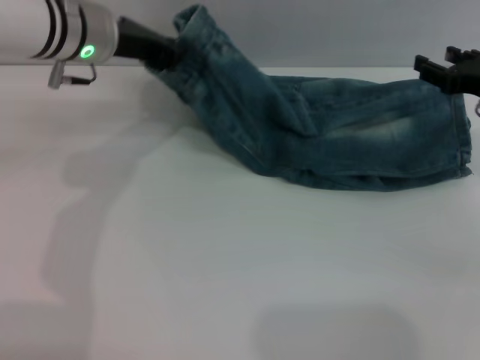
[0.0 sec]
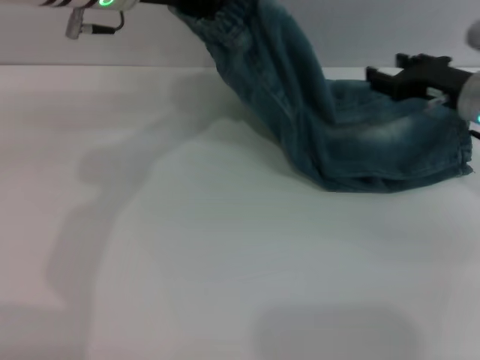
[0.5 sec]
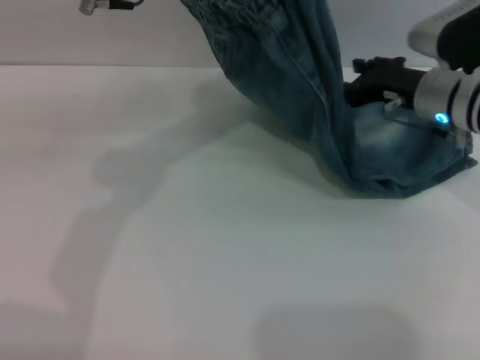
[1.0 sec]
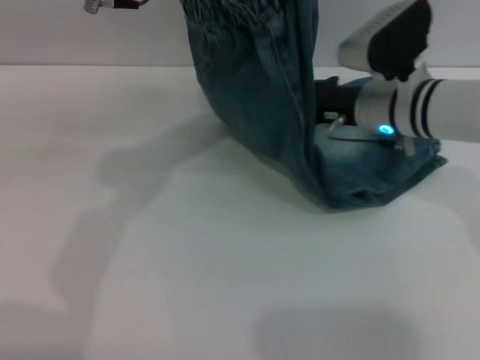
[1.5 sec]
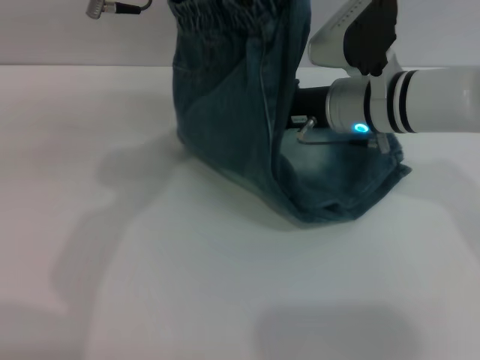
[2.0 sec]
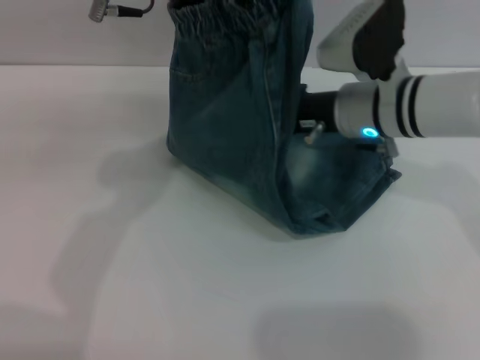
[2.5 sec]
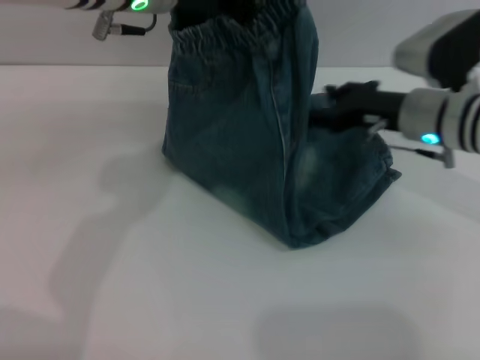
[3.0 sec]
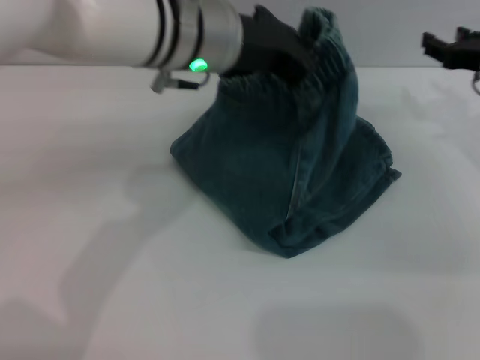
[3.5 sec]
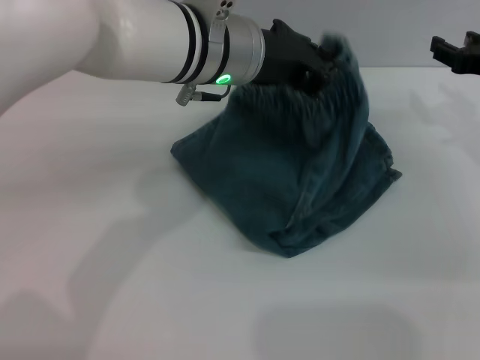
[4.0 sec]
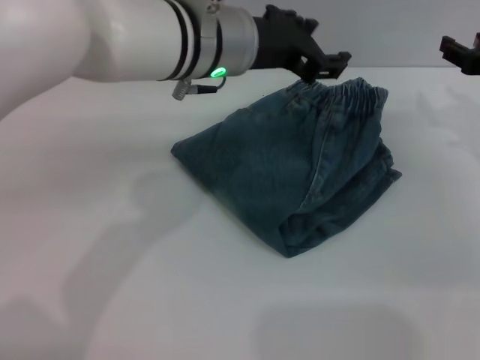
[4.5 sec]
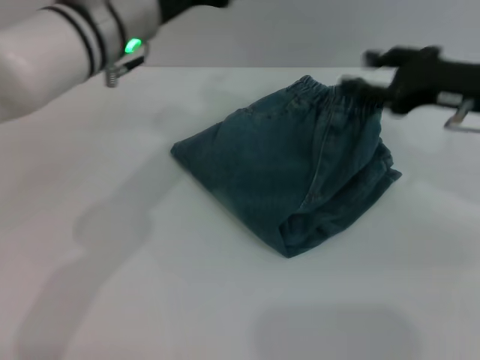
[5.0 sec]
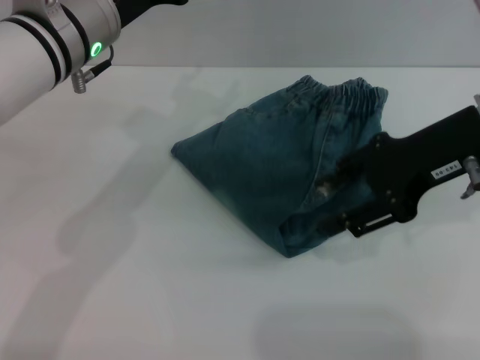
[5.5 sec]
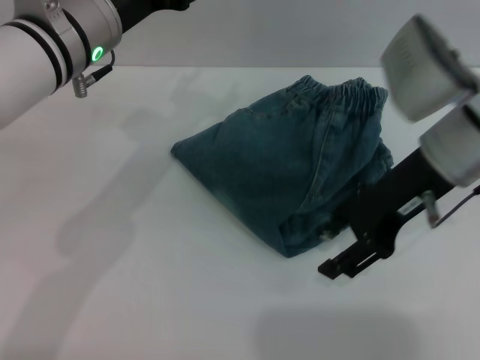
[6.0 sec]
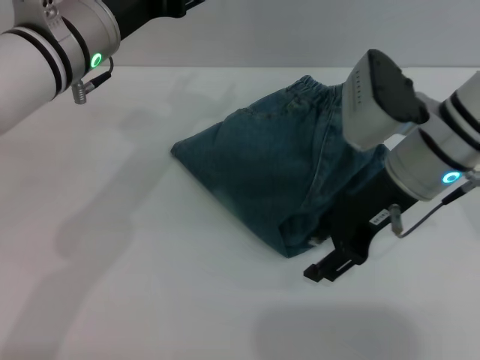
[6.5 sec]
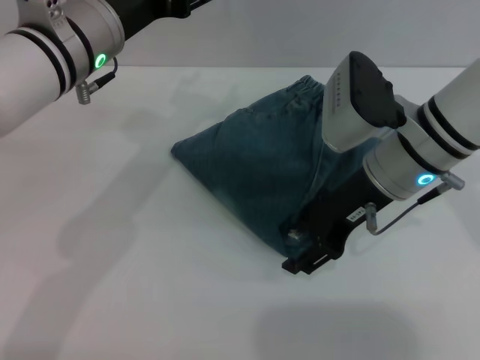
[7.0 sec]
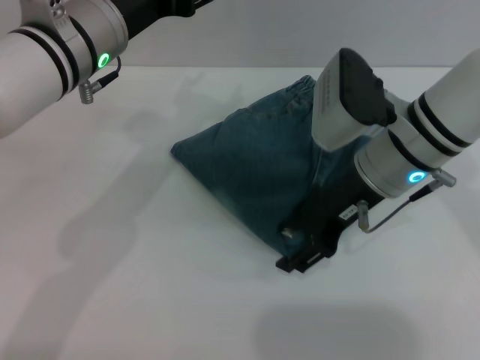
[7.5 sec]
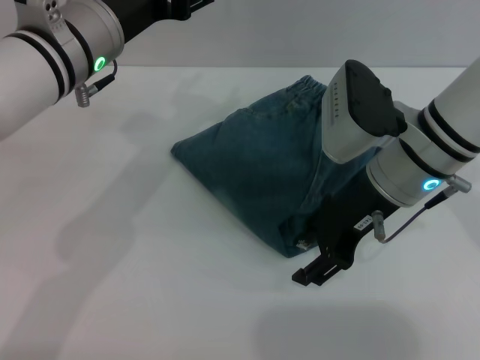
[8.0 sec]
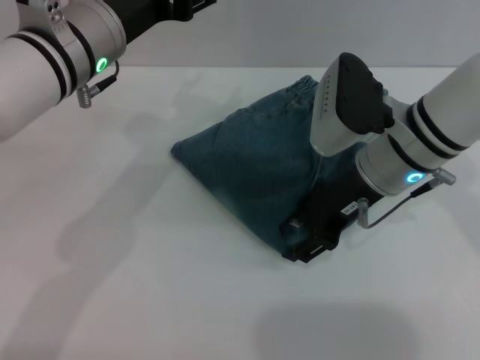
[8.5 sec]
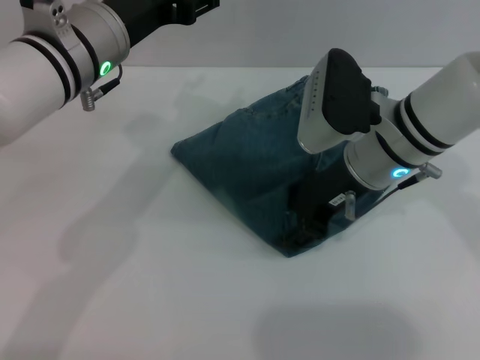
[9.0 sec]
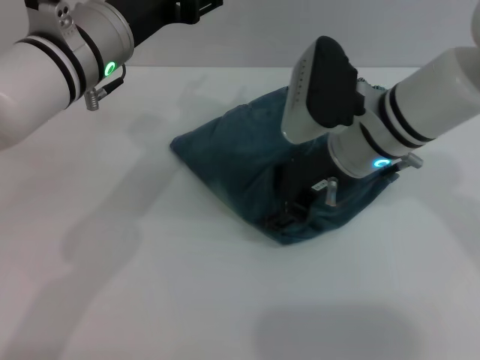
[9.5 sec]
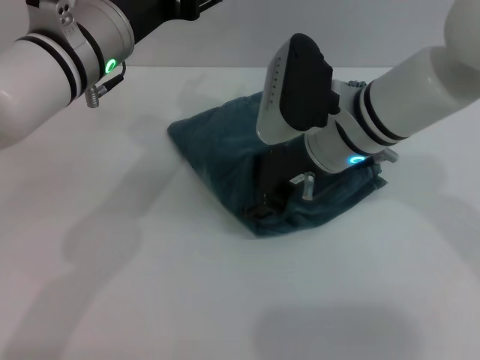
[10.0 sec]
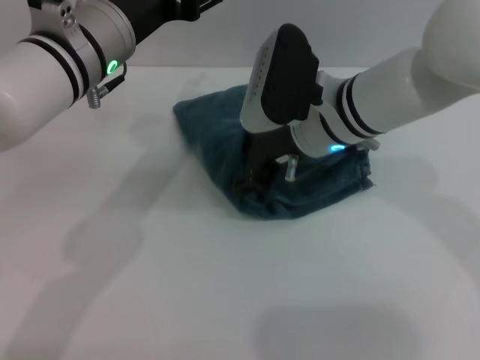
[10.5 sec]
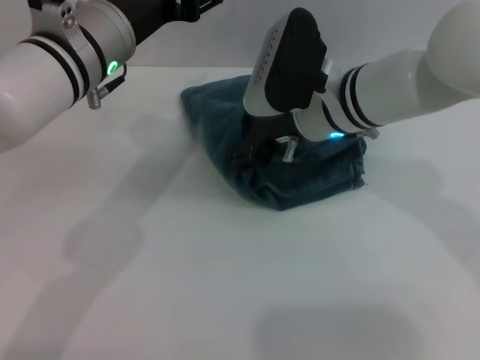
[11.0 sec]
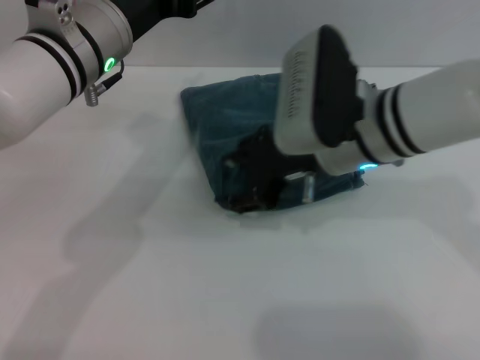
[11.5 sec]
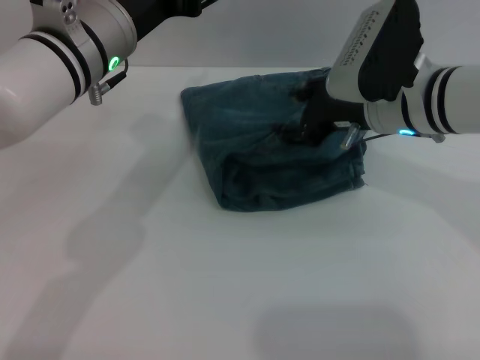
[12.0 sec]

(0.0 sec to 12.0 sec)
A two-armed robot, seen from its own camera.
Step, 0.0 sec - 4.5 sec: Fold the pants from left to right with the left gripper.
Step, 5.0 sec - 11.5 sec: Place the folded trousers onto the center area with the right grippers.
0.0 sec - 2.0 sec: The left gripper goes about 10 cm upward and to the right; the right gripper moves to the left, approximately 20 cm.
2.0 sec - 4.0 sec: The right gripper moves to the right, some 20 cm. The left gripper heads downward and to the right, covering about 10 cm.
4.0 sec - 6.0 sec: The left gripper heads to the left, covering some 10 cm, and opens up. The right gripper is displaced to the left and upward by about 15 cm.
6.0 sec - 8.0 sec: The grippers stay close to where they were, moving slightly.
8.0 sec - 10.0 sec: The right gripper shifts by roughly 5 cm.
10.0 sec - 12.0 sec: The right gripper is displaced to the right by roughly 5 cm.

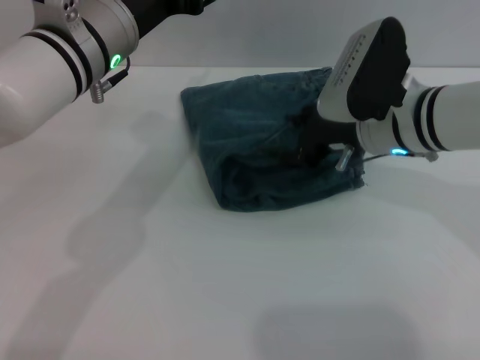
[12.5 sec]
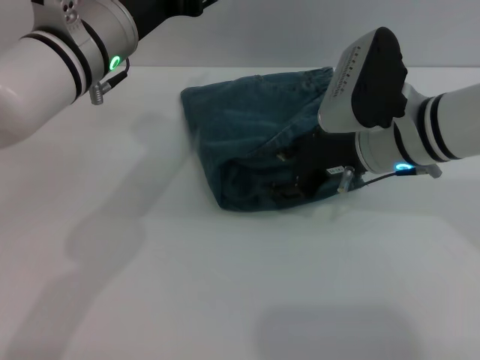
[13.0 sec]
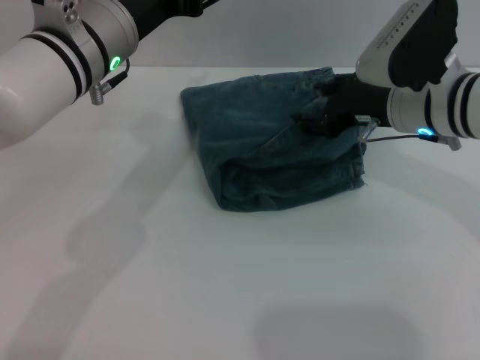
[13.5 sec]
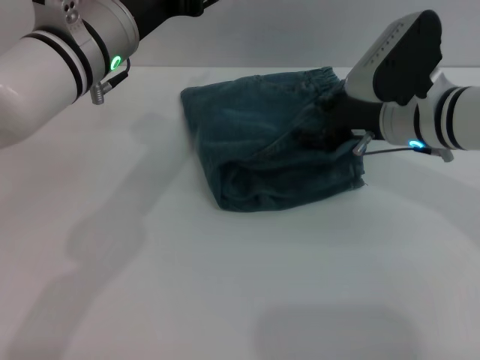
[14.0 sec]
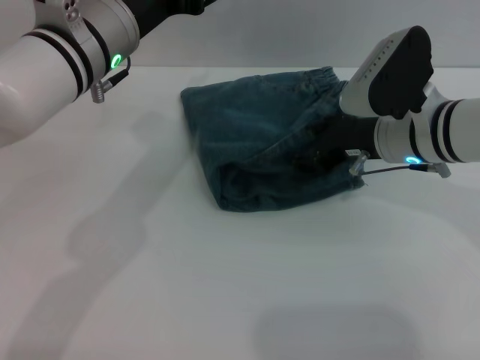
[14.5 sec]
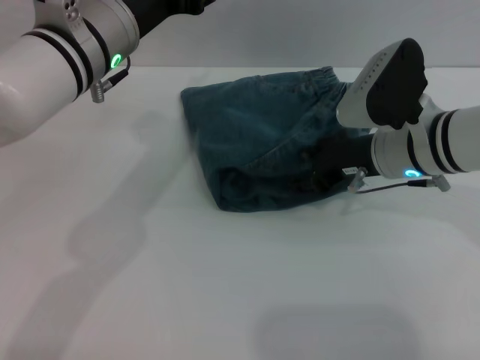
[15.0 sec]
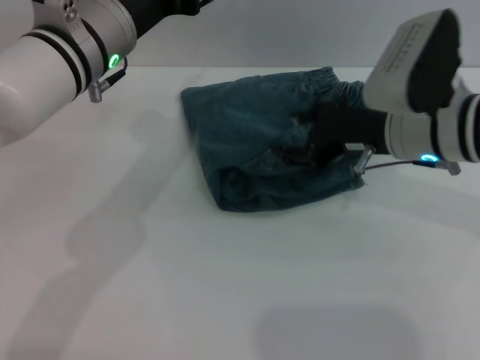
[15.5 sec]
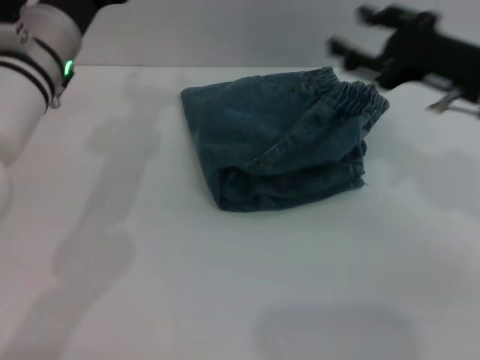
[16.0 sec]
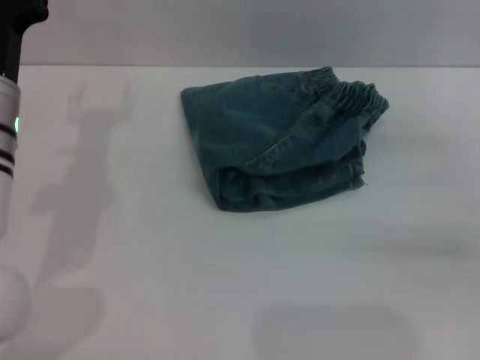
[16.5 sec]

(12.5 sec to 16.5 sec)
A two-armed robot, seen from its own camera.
12.5 sec - 14.5 sec: The grippers stay close to where they were, moving slightly.
14.5 sec - 16.5 sec: The right gripper shifts roughly 20 cm to the right, while the left gripper goes about 10 cm to the left and downward.

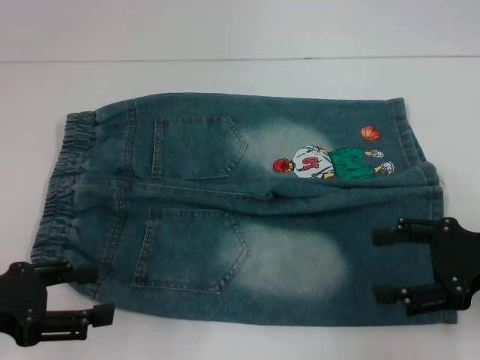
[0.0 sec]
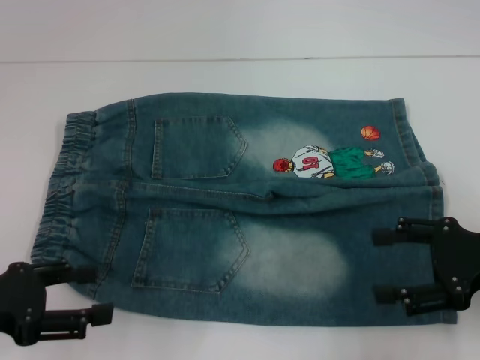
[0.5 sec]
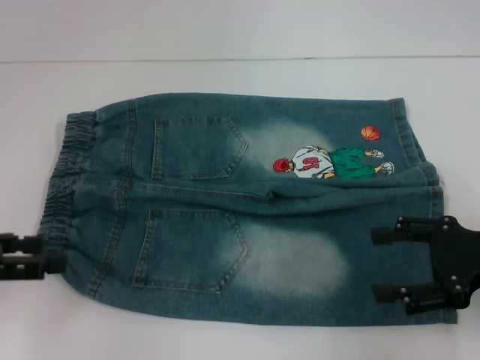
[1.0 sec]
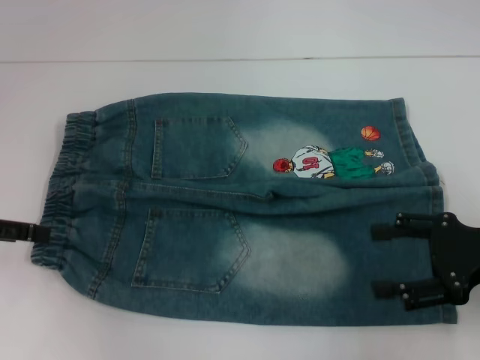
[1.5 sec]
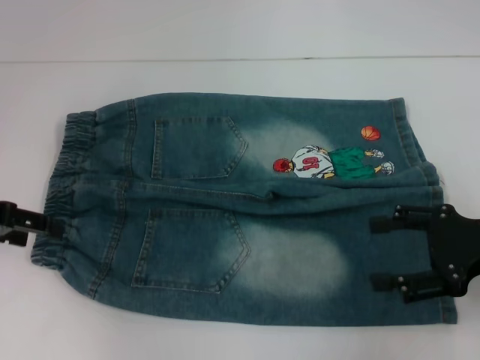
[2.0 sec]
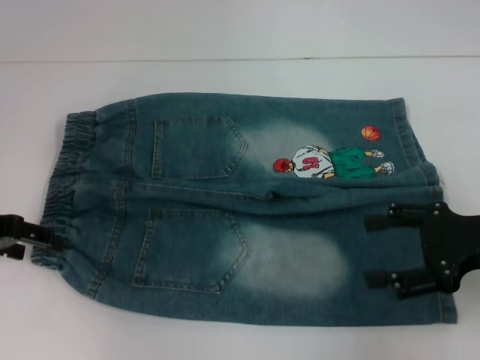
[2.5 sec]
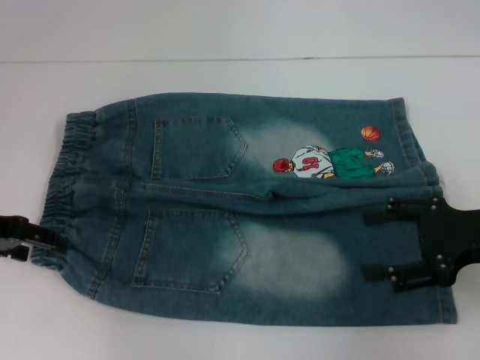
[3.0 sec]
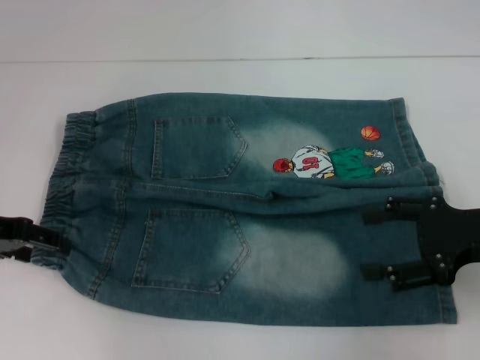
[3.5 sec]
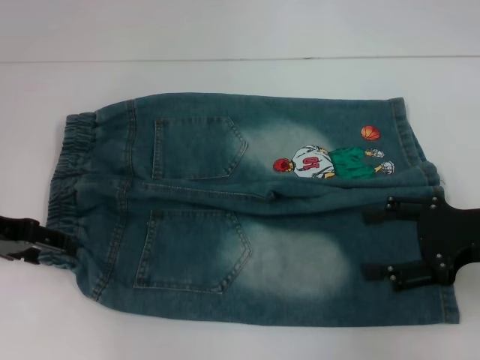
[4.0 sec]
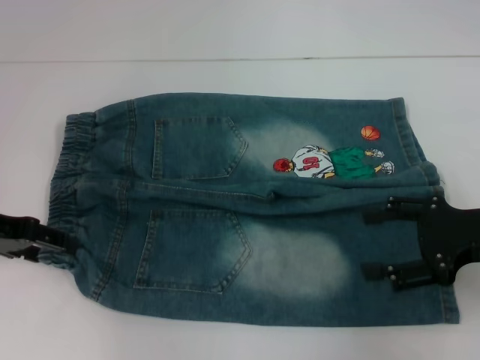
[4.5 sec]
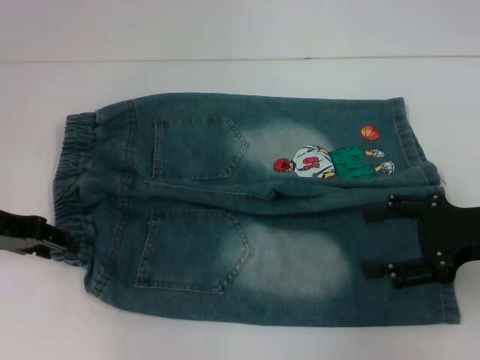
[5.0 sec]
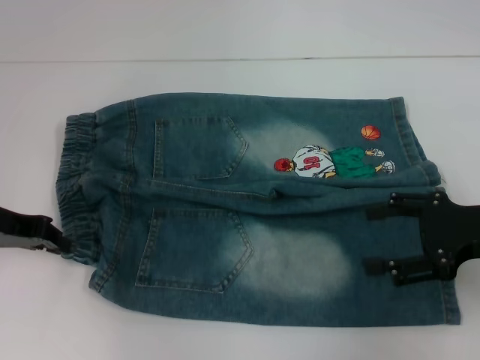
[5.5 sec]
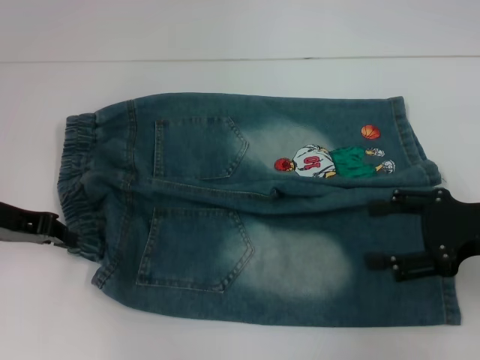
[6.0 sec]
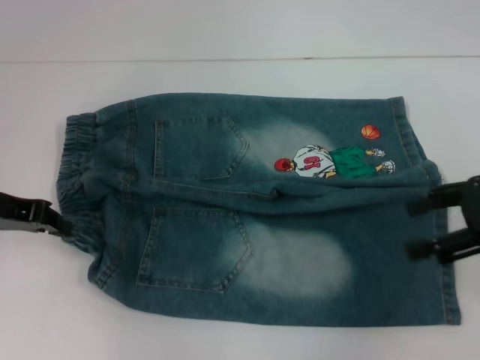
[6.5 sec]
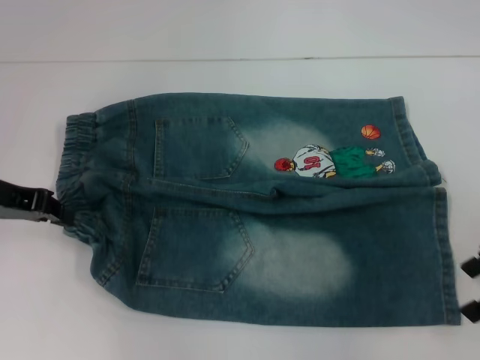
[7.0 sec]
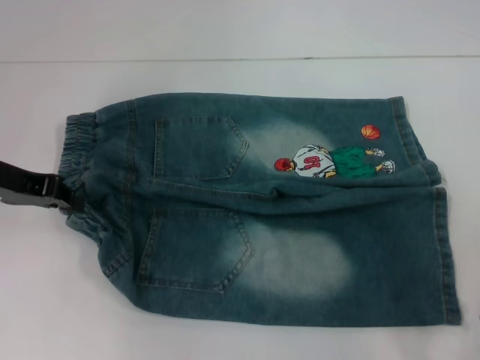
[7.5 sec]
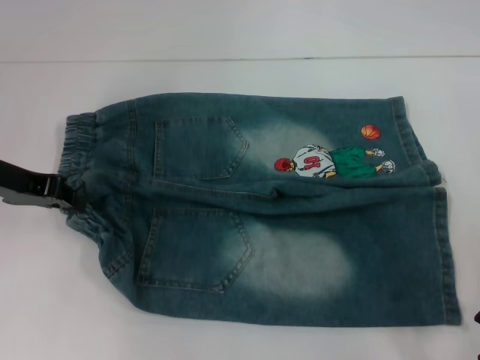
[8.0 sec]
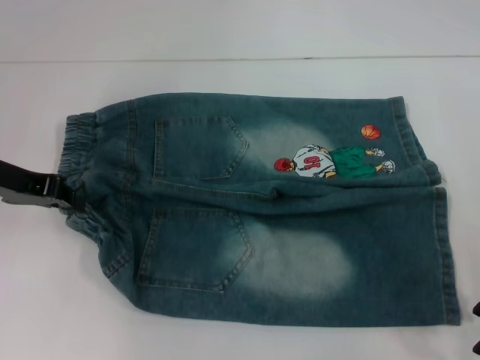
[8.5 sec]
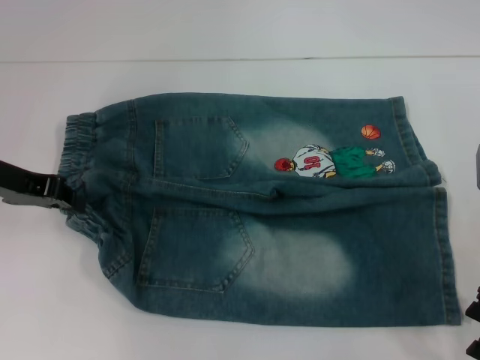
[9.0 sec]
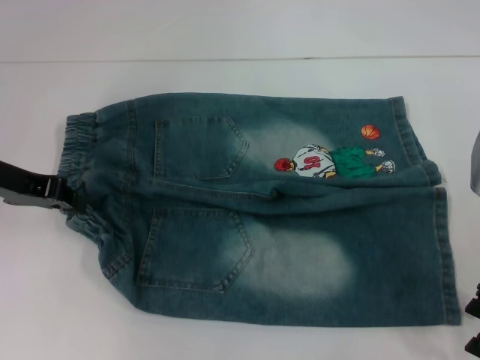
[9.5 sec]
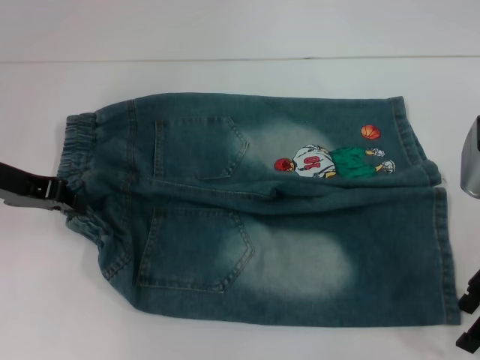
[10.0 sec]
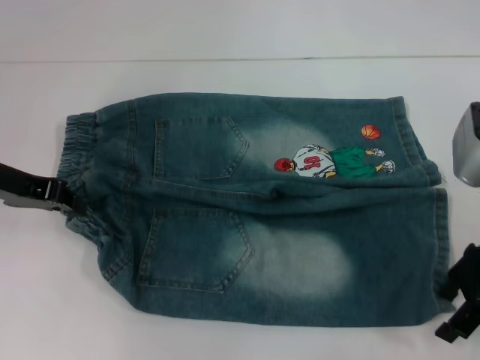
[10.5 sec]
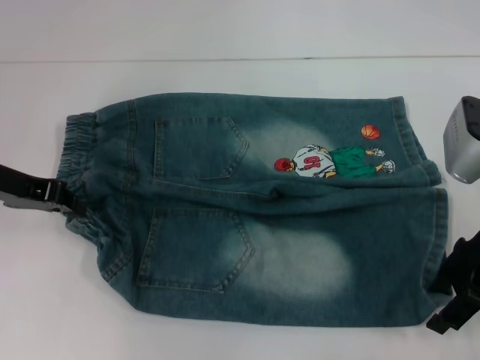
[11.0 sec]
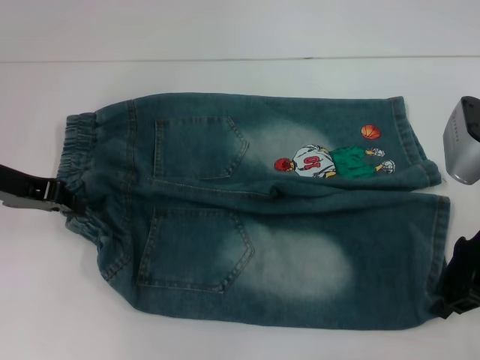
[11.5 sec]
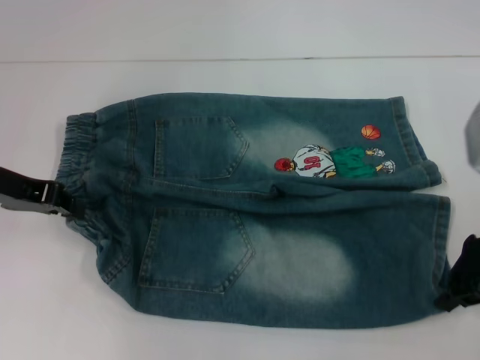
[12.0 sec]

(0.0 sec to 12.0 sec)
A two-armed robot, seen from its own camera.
Step, 0.0 sec - 11.5 sec: Grab the lower right pant leg with your right hand.
0.0 sec - 2.0 sec: The left gripper travels forward by roughly 10 cm.
2.0 sec - 4.0 sec: There are only small adjustments of the grippers.
4.0 sec - 6.0 sec: The left gripper closes up.
8.0 sec - 10.0 sec: There are only small adjustments of the grippers.
10.0 sec - 12.0 sec: The right gripper closes up.
